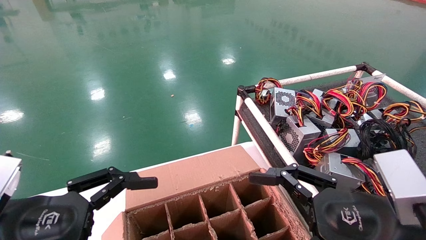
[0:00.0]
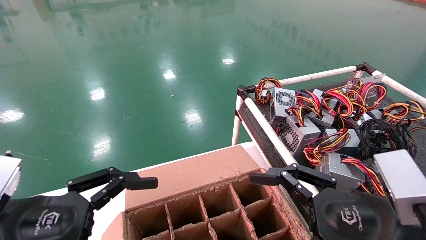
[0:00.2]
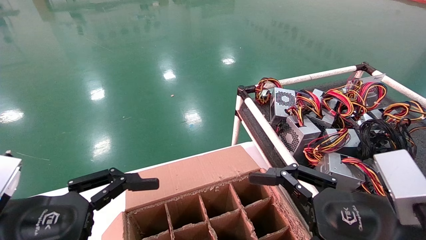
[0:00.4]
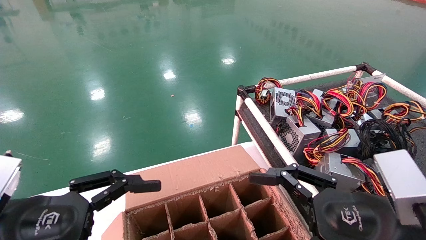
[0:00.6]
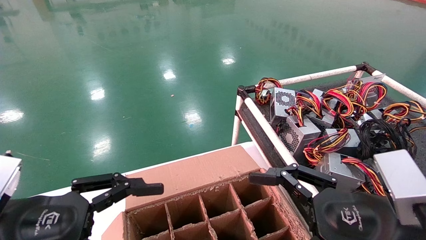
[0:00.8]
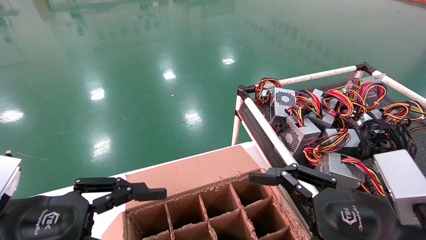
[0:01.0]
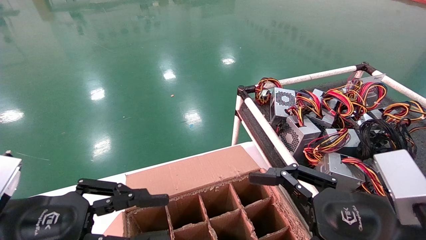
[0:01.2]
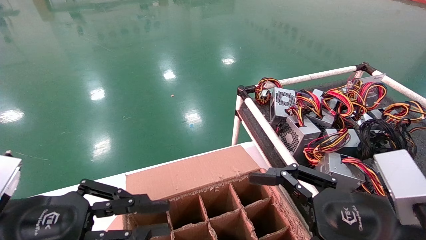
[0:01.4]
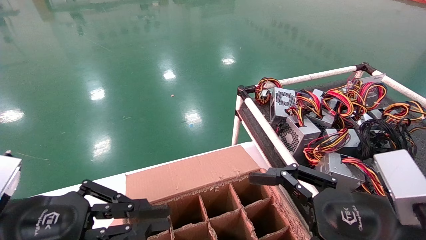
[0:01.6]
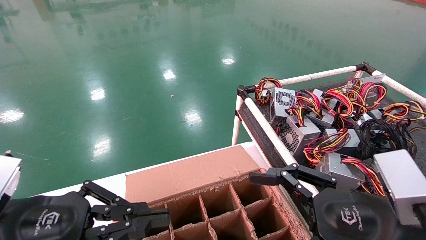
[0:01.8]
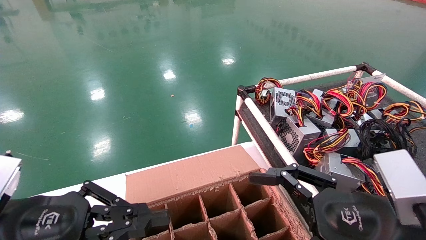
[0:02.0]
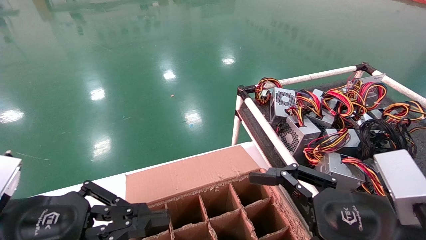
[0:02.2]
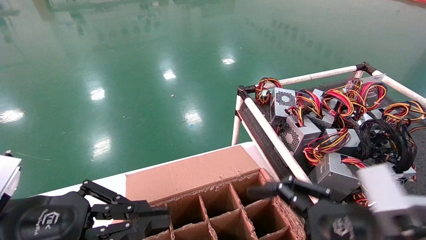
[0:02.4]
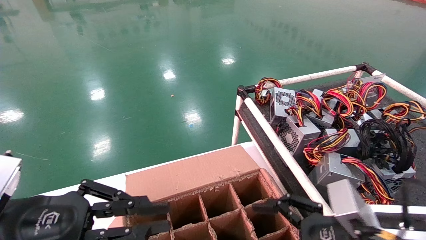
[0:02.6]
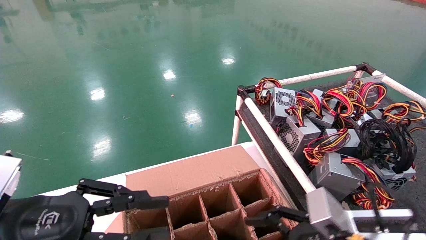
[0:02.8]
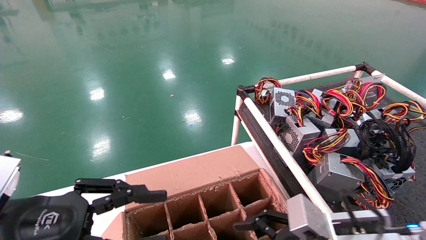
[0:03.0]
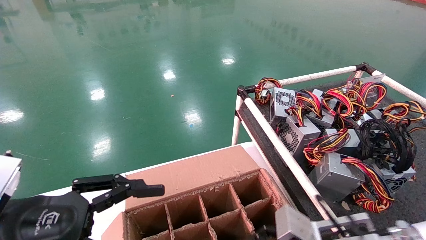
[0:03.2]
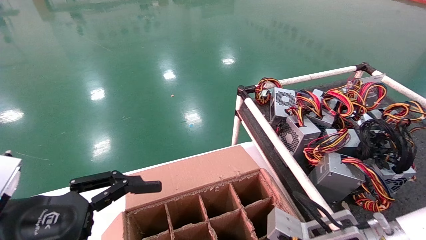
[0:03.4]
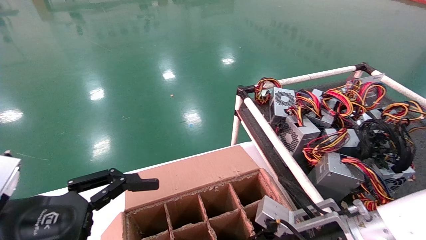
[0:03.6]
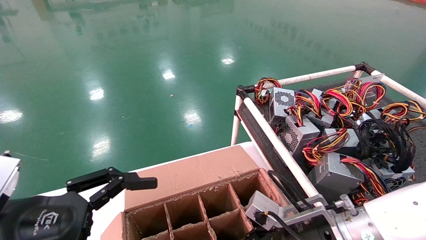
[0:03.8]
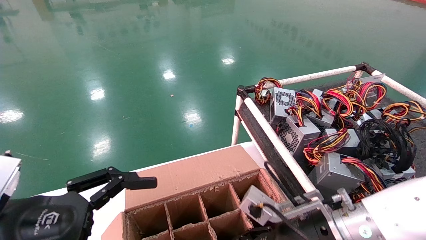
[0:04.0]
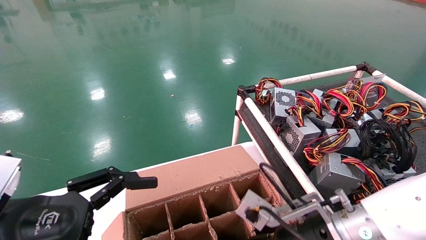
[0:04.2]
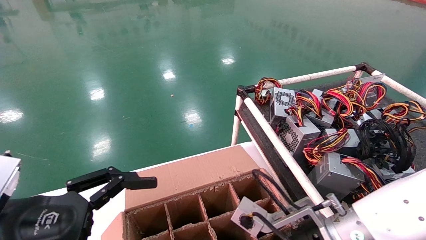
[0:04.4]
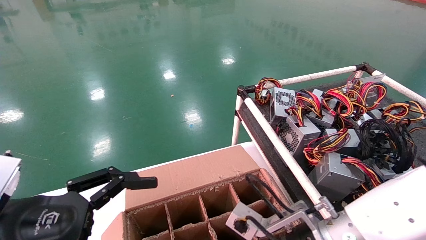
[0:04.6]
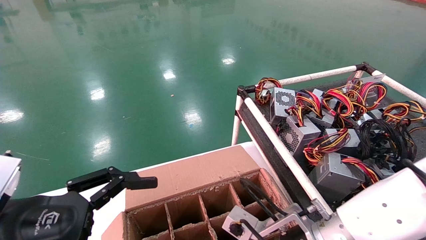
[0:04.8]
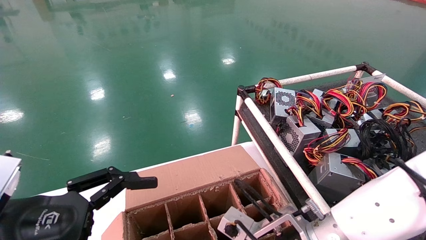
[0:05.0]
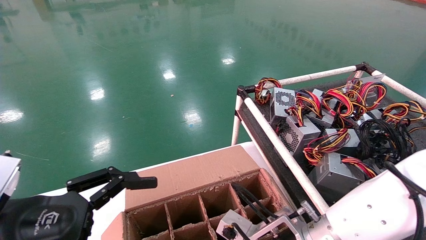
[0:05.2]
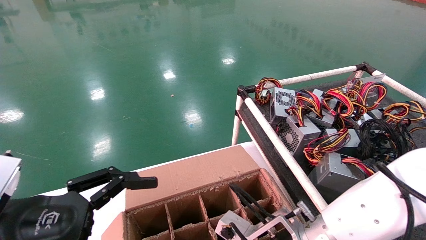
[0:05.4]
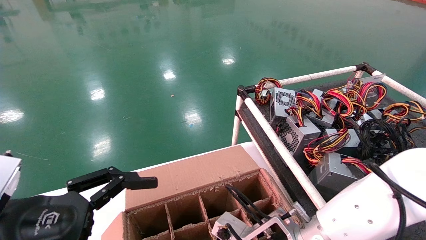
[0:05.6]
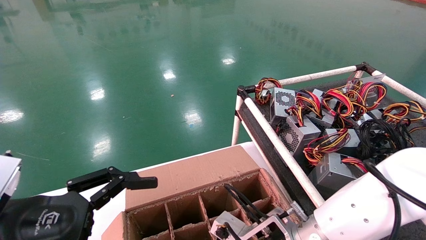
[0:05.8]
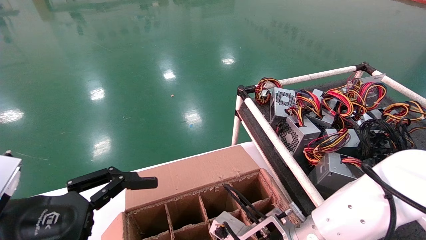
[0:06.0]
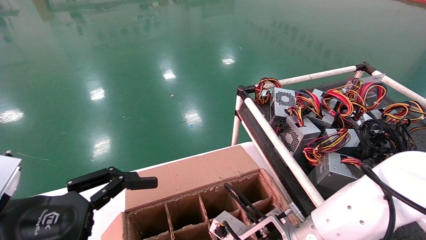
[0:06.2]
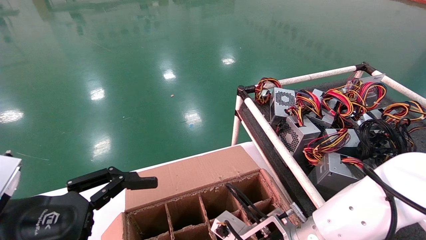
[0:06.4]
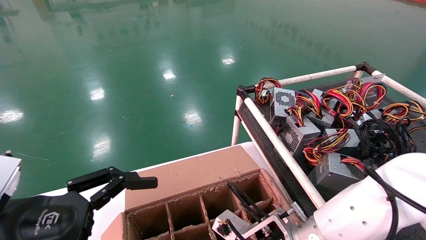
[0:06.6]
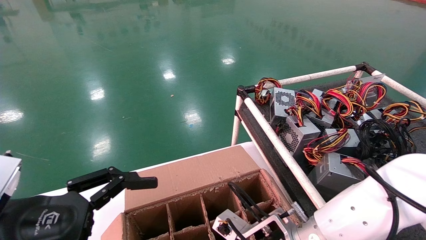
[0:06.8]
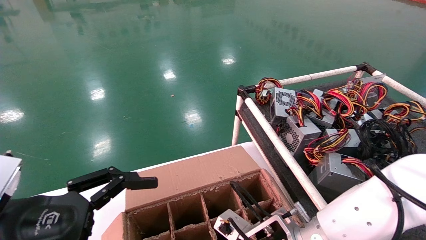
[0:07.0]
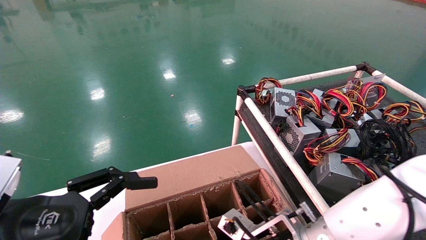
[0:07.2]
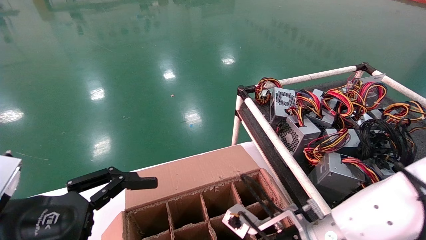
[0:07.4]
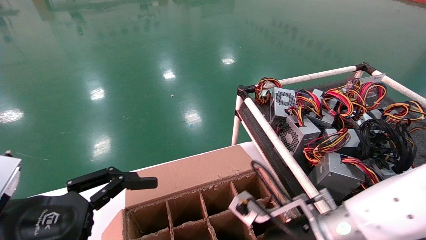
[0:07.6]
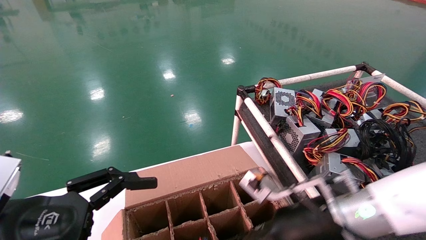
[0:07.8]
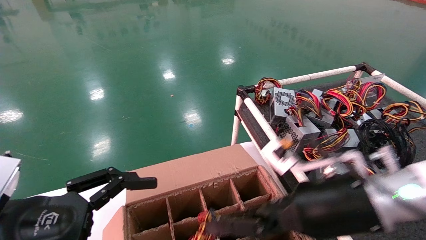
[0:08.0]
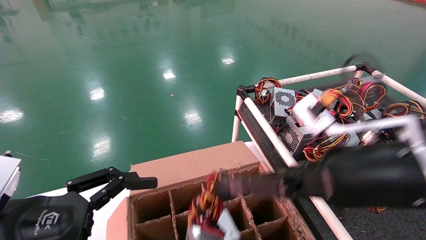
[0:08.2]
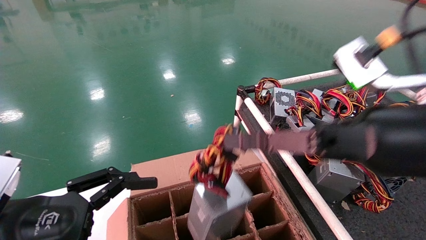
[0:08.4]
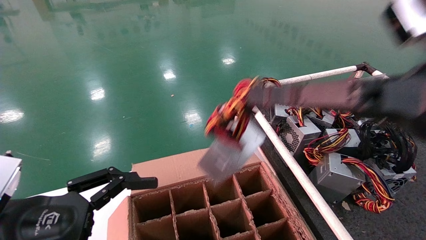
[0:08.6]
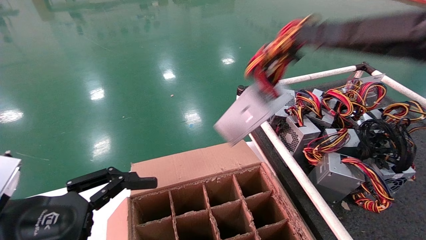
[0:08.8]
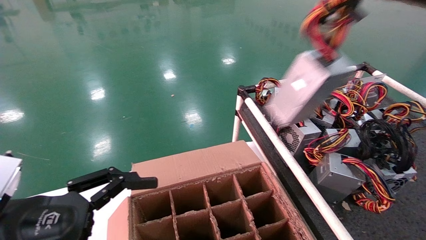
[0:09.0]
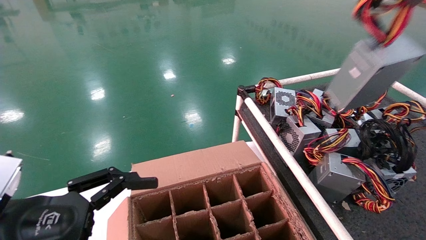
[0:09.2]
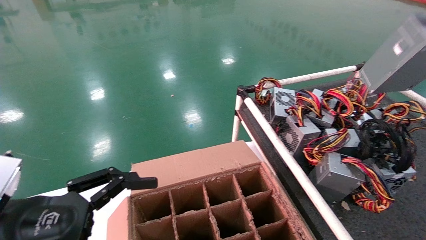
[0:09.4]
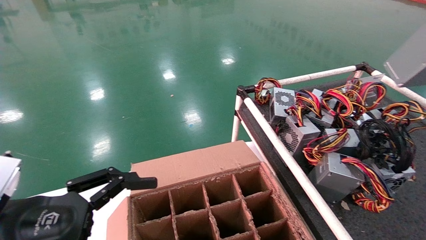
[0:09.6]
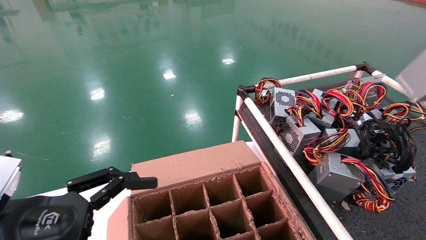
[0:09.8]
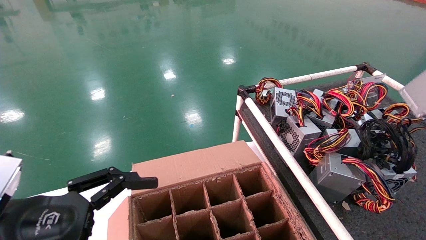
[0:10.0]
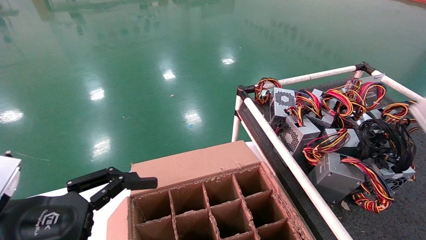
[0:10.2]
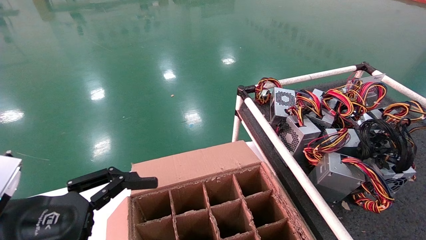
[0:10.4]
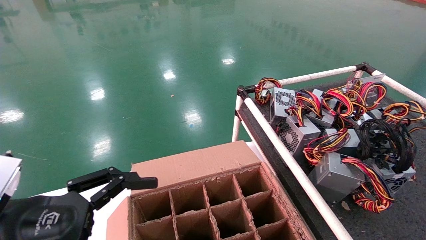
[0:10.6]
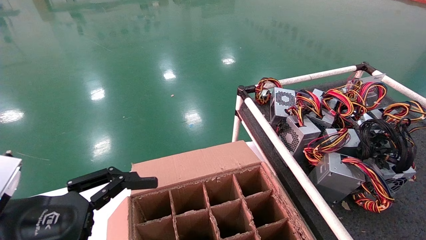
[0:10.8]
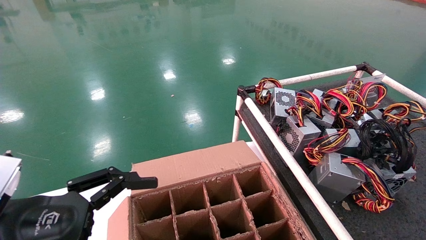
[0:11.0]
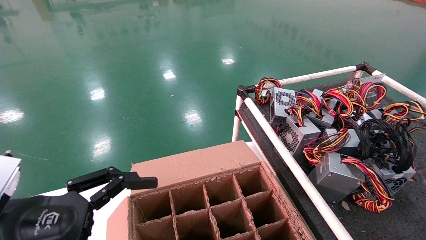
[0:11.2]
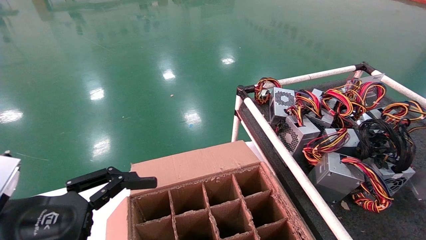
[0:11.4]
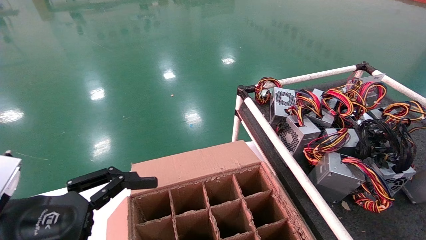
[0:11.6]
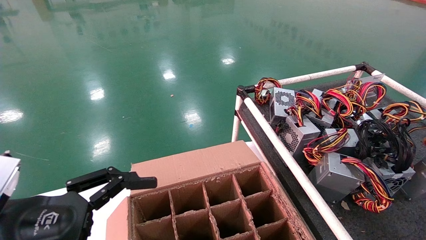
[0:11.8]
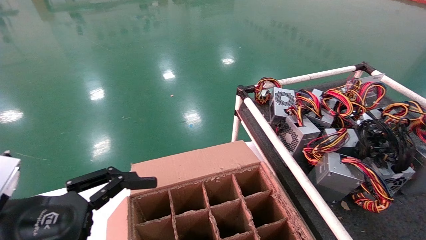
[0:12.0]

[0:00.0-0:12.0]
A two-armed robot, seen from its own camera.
Step, 0:02.8 to 0:07.2: Grab and lift the power supply from the large box.
0:00.0 to 0:01.6: The left gripper closes its fingers.
0:01.6 to 0:03.0: The right gripper goes some 5 cm downward.
0:03.0 to 0:04.4: The left gripper opens its fingers, while the right gripper heads to the left, covering some 5 cm.
0:04.4 to 0:06.0: The right gripper ends up approximately 5 cm from where it was.
0:06.0 to 0:07.6: The right gripper shifts by some 5 cm, and closes up.
0:07.6 to 0:09.0: The right gripper is displaced upward, to the right and backward by about 35 cm.
0:09.0 to 0:10.4: The right gripper travels to the right and backward by approximately 25 cm.
0:10.4 to 0:12.0: The right gripper is displaced forward and downward by roughly 25 cm.

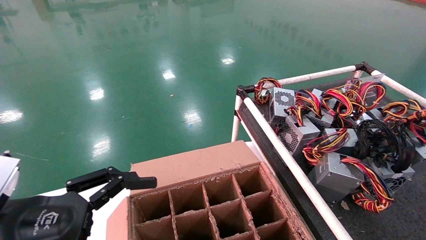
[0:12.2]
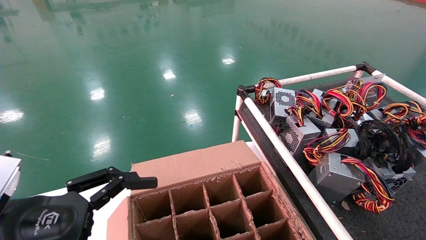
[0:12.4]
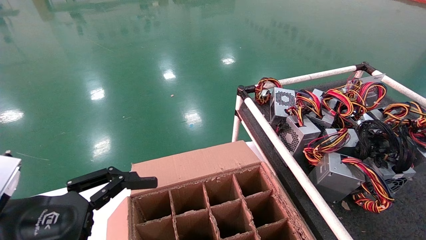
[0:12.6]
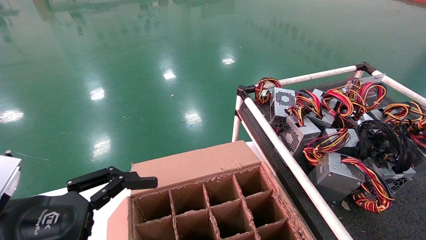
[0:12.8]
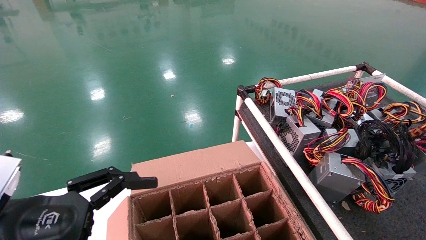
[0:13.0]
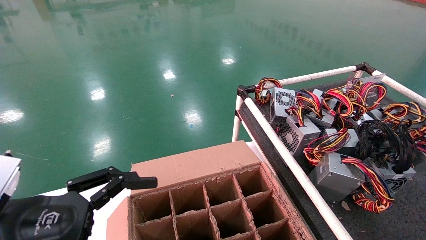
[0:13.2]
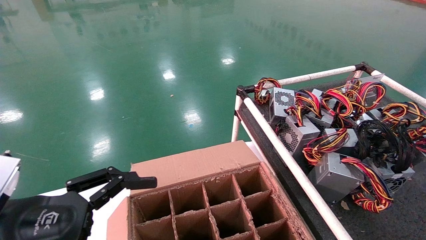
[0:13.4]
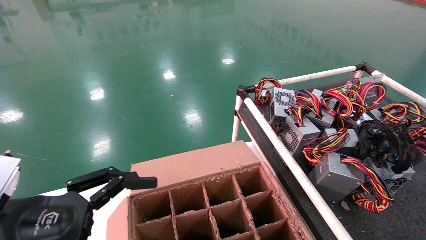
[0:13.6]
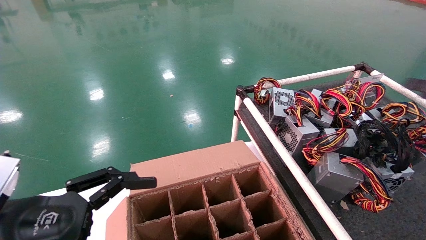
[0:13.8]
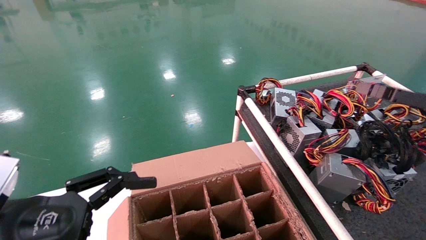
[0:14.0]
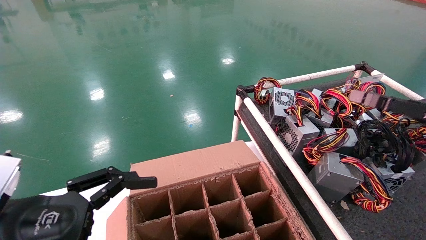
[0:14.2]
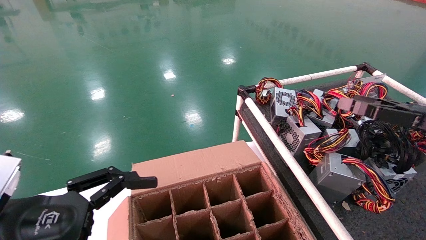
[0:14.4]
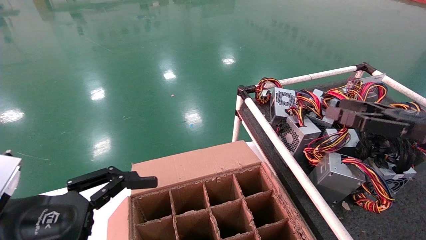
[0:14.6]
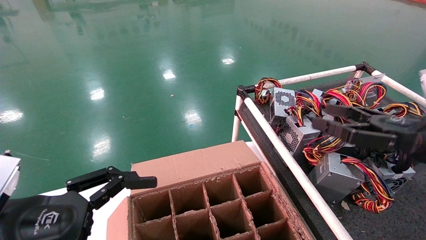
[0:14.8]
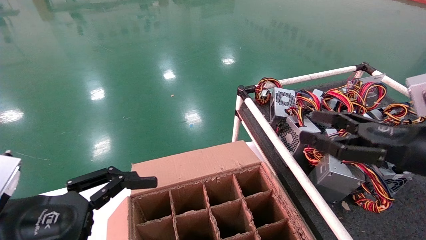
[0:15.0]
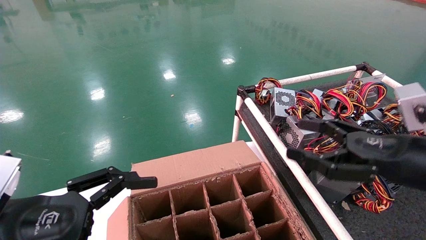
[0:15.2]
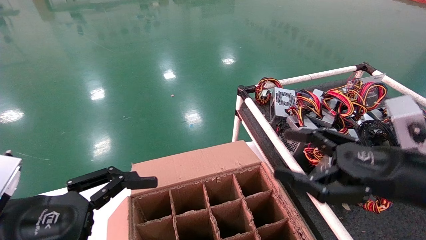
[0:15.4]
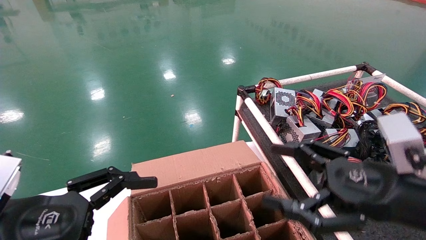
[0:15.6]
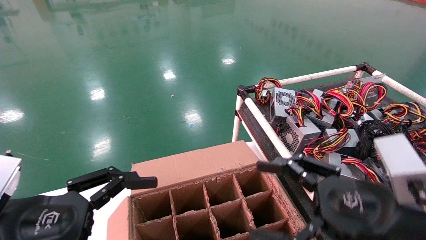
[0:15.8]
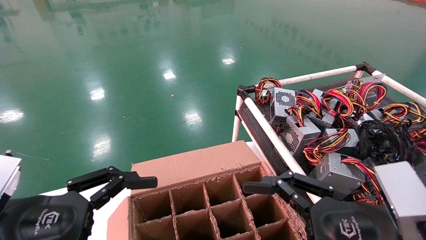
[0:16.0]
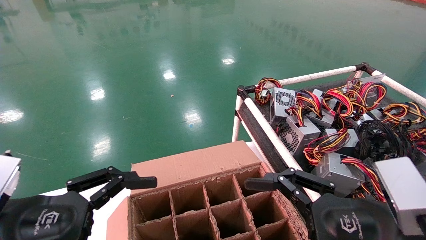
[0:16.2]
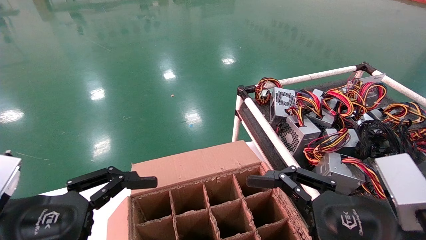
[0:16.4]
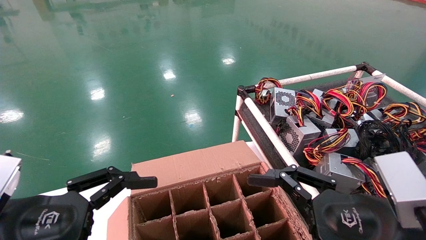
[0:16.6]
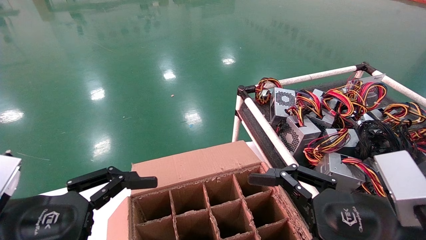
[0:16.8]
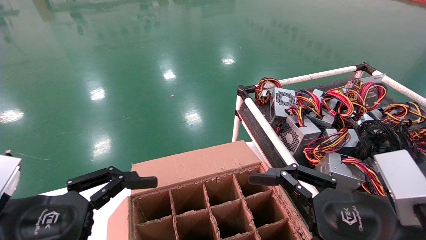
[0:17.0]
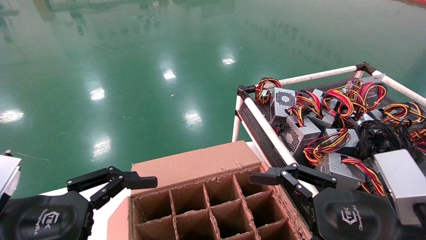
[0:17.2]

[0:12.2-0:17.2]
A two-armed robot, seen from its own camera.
0:12.2 to 0:13.8: The right gripper travels to the left by roughly 5 cm, and opens up.
0:13.8 to 0:15.6: The right gripper goes roughly 25 cm to the left.
0:15.6 to 0:17.2: There are only small adjustments of the grippers.
